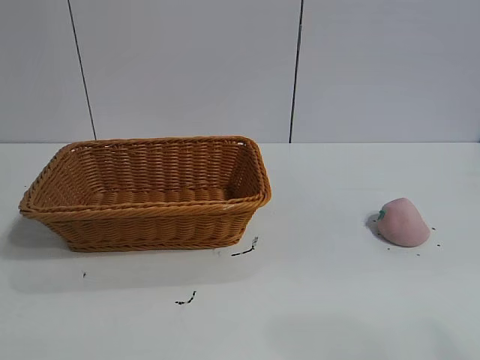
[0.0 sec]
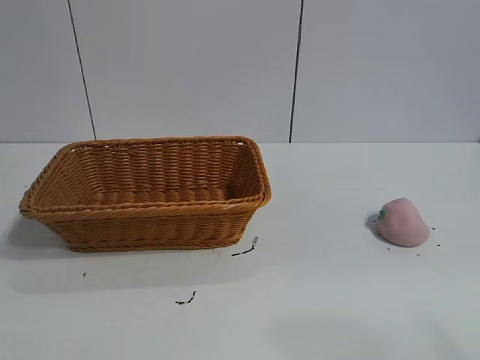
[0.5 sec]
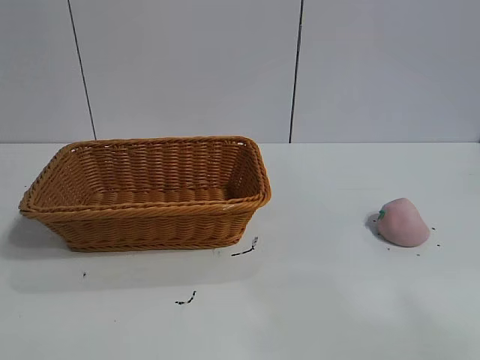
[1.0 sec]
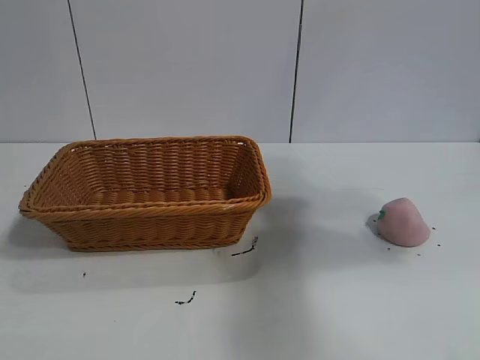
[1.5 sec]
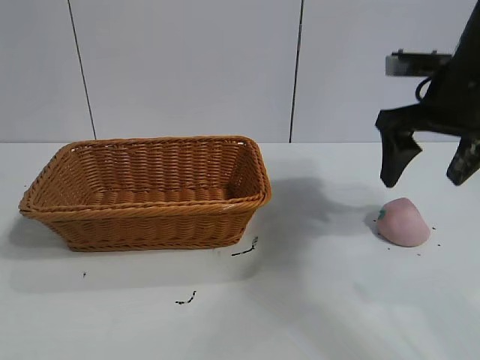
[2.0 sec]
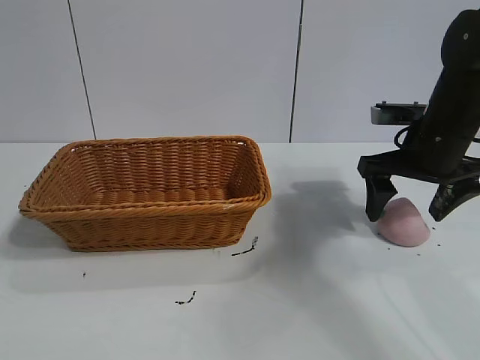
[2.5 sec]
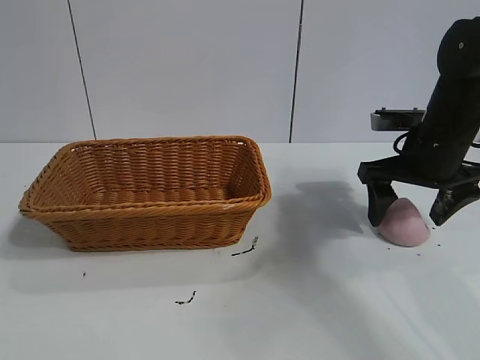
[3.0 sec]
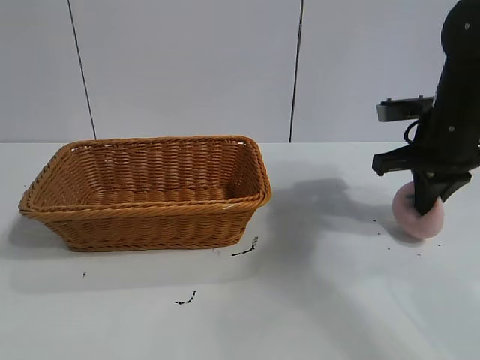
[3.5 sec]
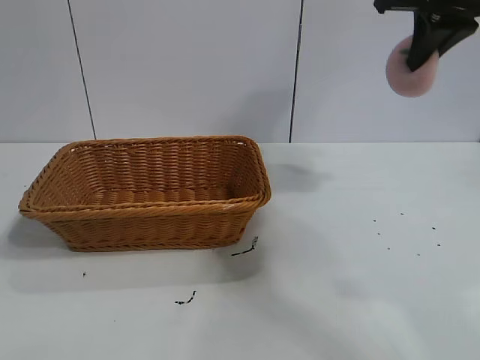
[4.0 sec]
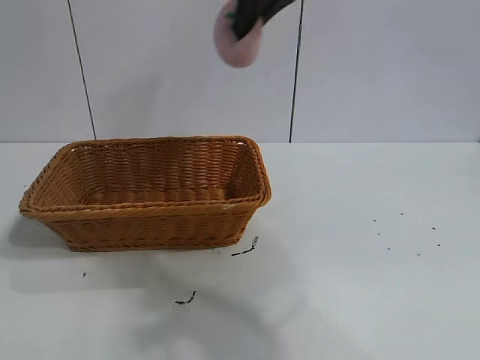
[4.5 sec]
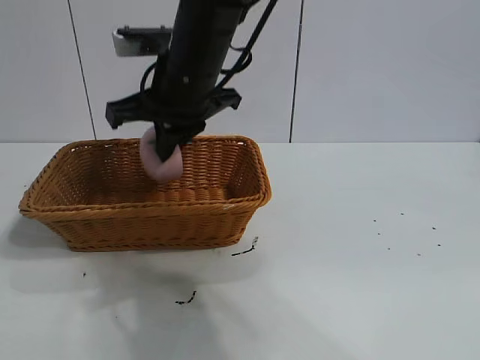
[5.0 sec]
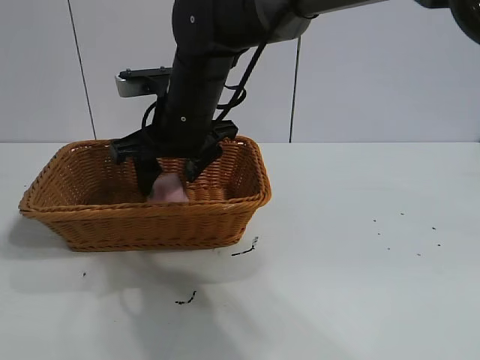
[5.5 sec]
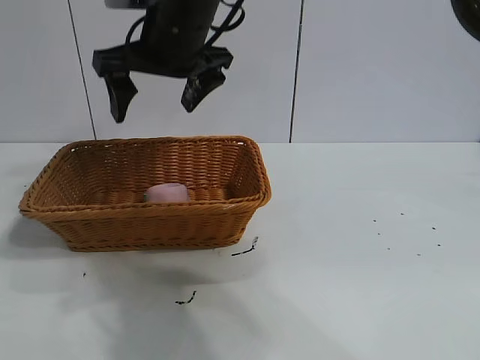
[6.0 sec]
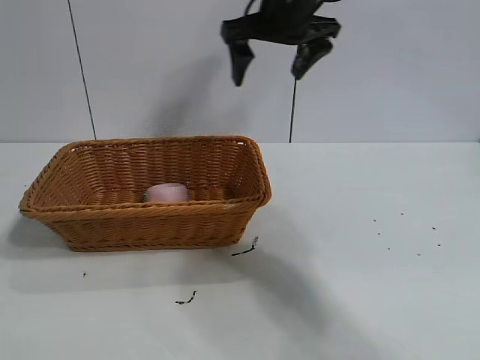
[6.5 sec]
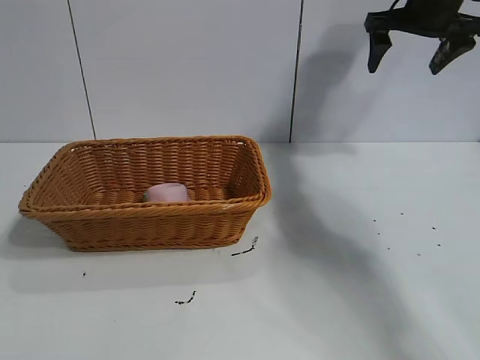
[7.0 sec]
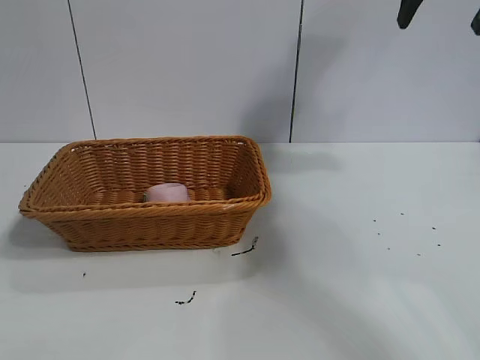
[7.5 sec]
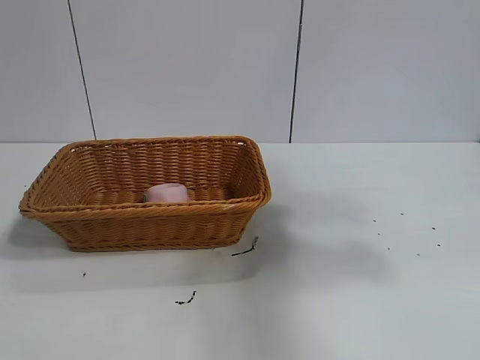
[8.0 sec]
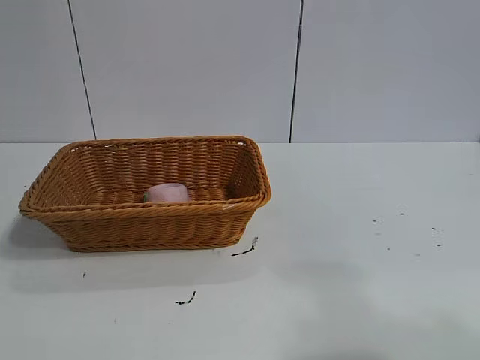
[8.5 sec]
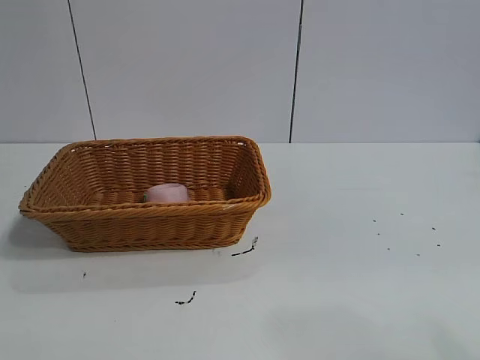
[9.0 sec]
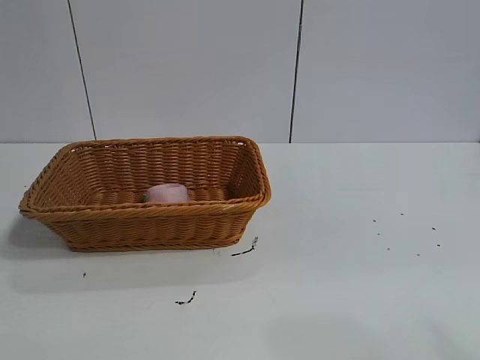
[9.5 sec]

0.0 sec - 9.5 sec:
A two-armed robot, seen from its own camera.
Task of the whole recording: pick up the peach and put it into the basket.
Step, 1.0 sec - 3.0 sec: Grasp the peach with right gripper.
Step, 3.5 sec - 6.0 sec: Place the peach in the basket with right gripper.

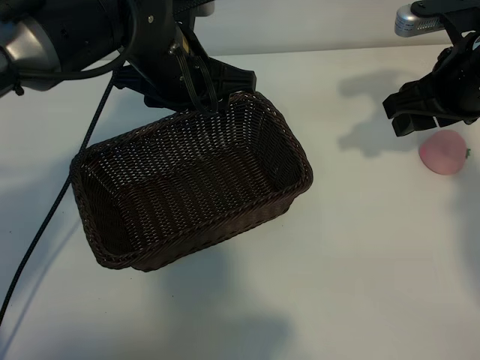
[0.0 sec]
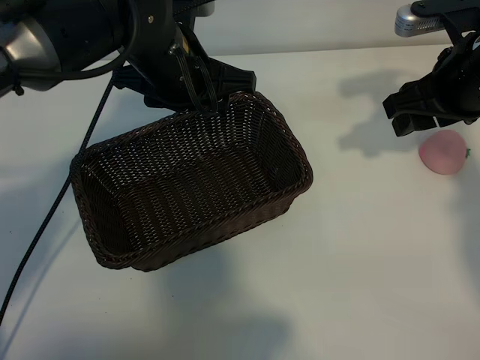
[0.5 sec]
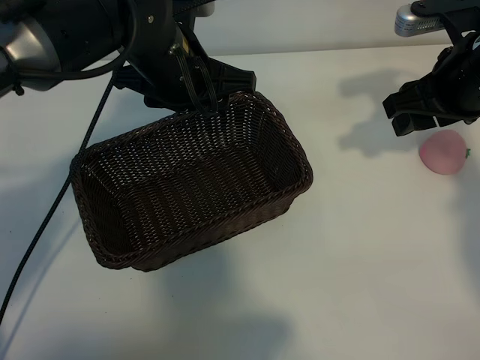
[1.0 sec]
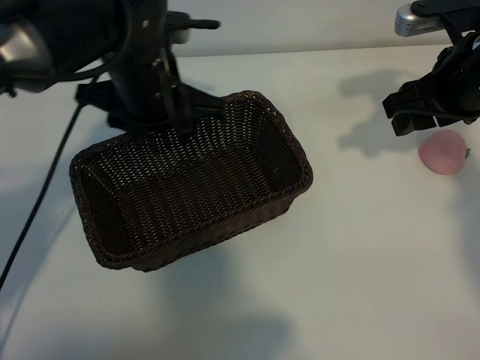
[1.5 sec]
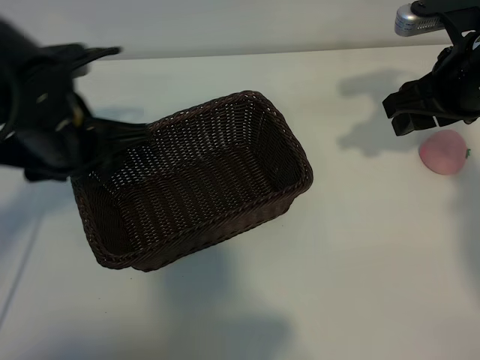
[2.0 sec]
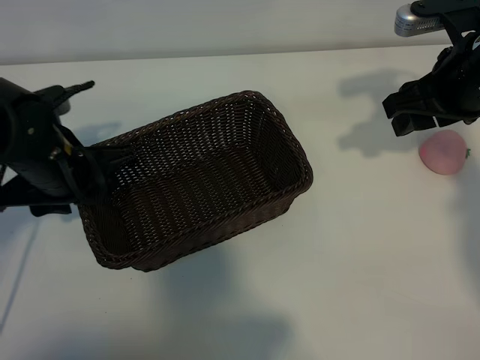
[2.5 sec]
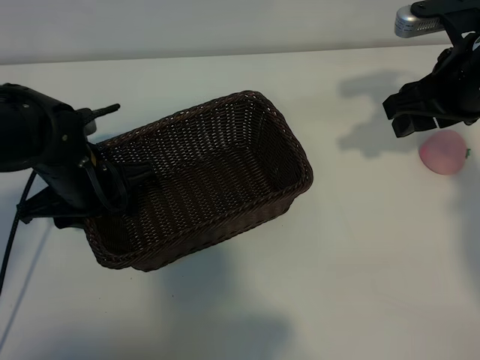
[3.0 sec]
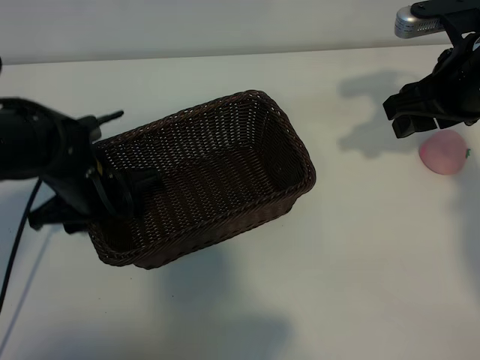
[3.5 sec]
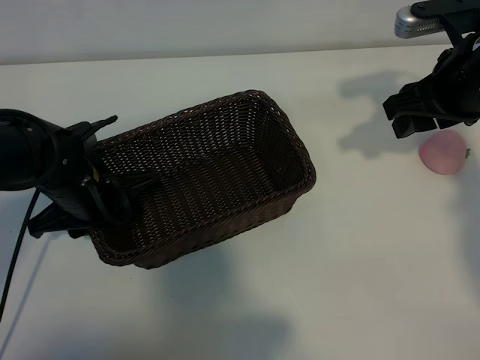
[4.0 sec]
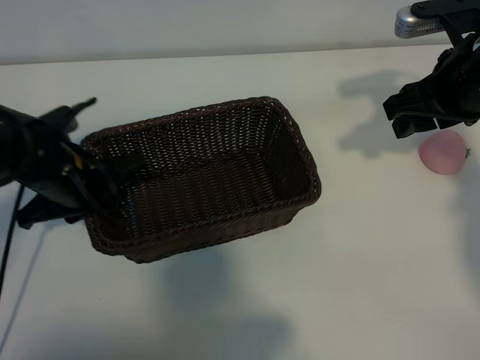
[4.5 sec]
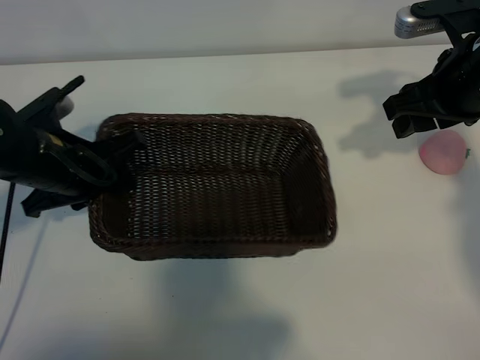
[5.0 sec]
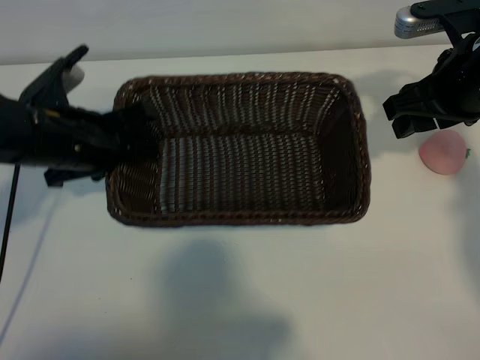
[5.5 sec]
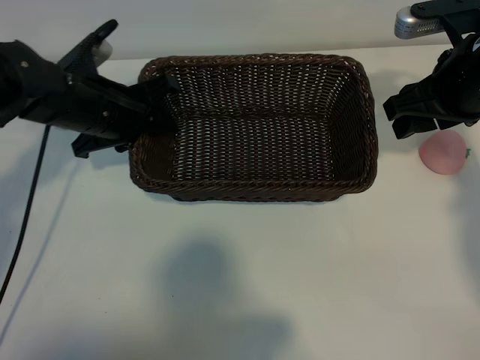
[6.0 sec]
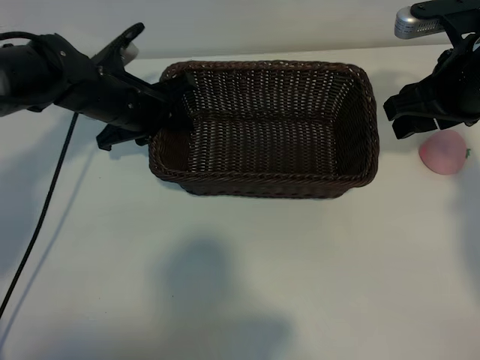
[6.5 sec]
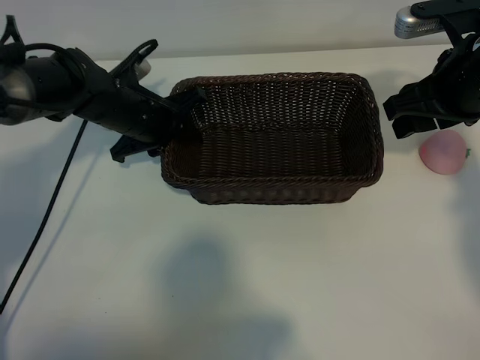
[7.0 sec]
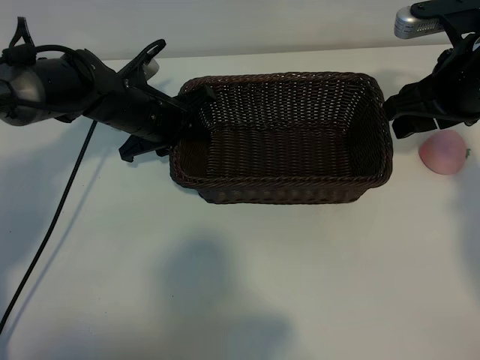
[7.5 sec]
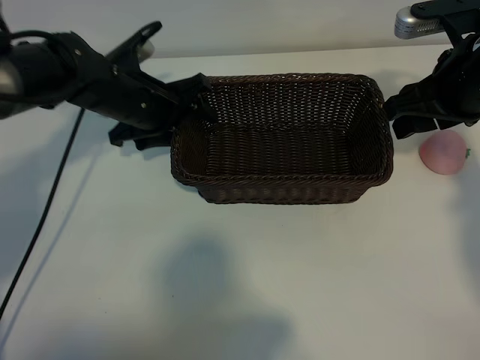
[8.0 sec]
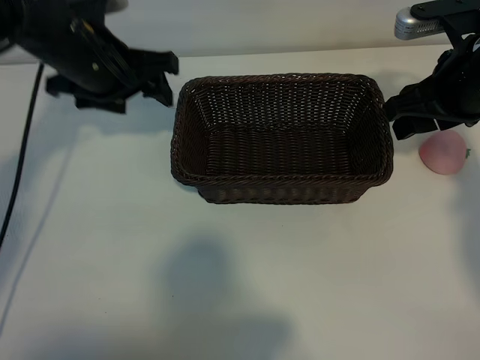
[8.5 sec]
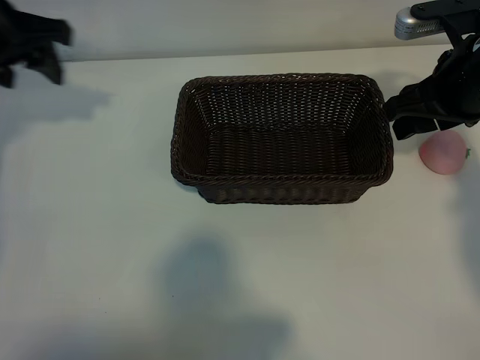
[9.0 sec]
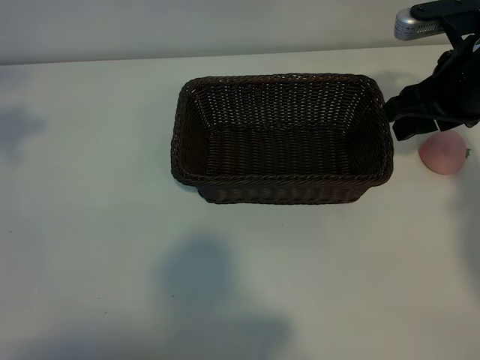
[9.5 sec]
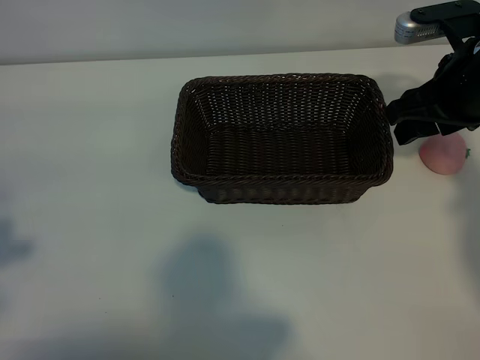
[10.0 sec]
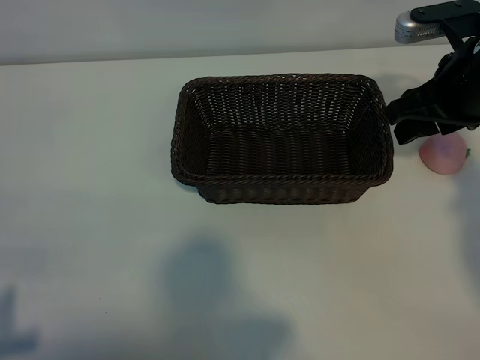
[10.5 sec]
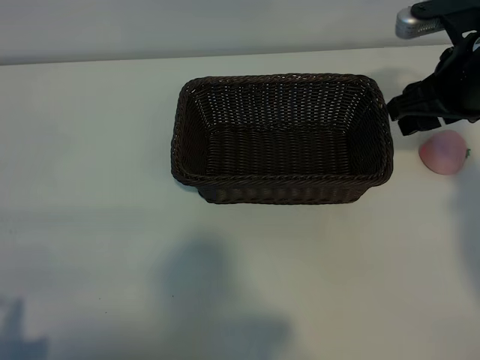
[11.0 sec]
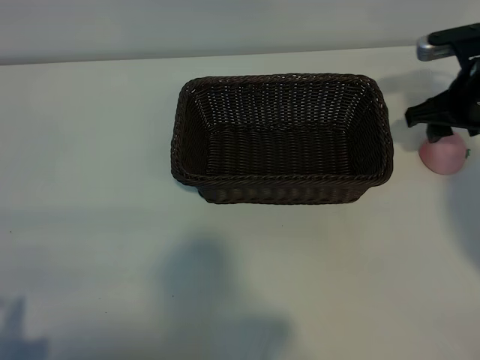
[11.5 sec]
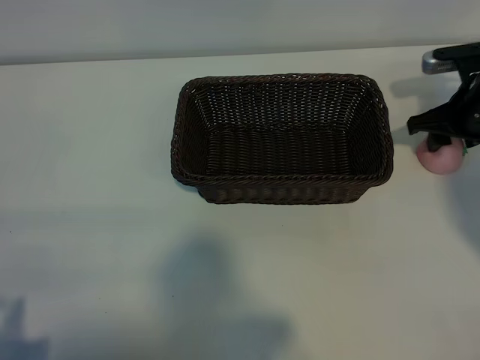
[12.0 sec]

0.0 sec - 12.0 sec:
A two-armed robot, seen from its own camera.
Task of the whole recording: pick up the peach and put it into the basket.
Step, 1.5 sec - 4.0 sec: Grasp the basket with left gripper.
Step, 4.5 sec - 8.0 sec: Place the basket in the center of view with left gripper.

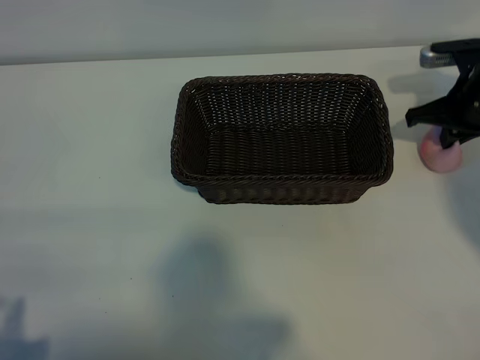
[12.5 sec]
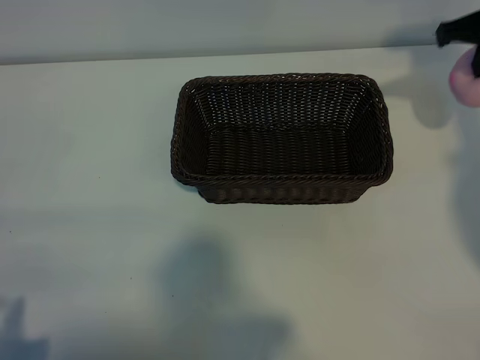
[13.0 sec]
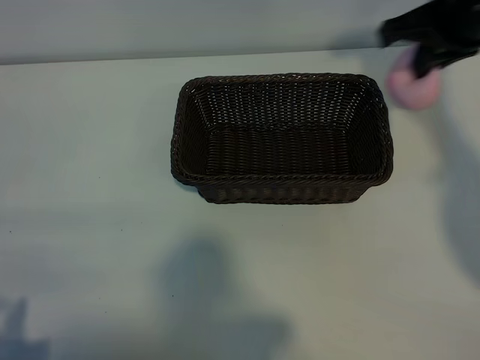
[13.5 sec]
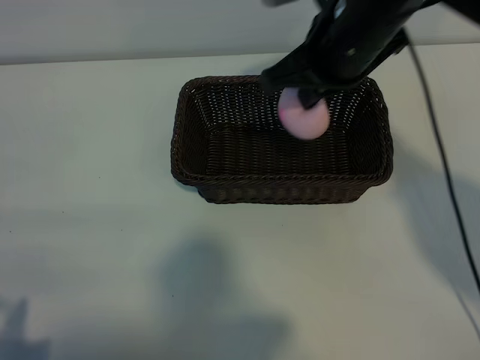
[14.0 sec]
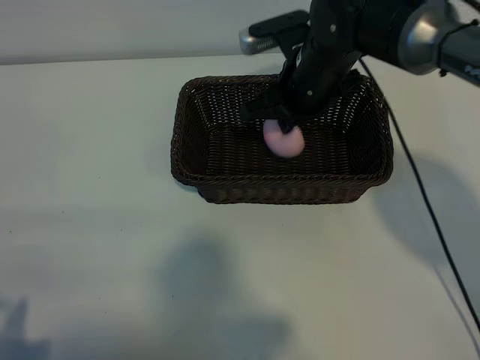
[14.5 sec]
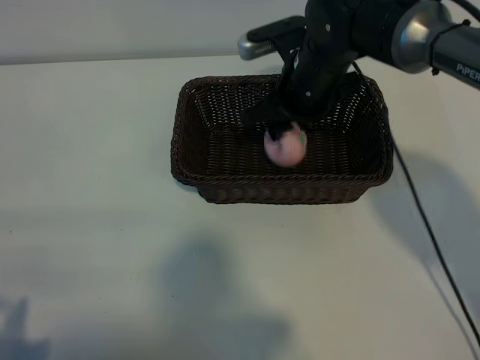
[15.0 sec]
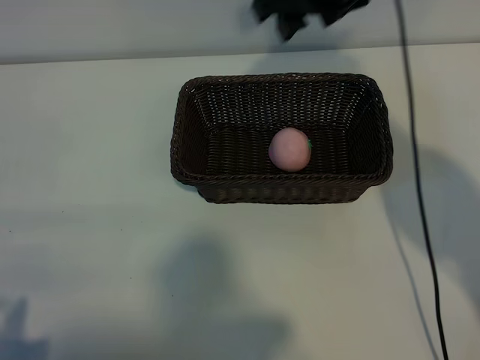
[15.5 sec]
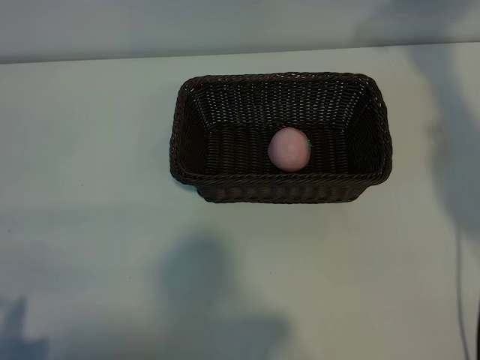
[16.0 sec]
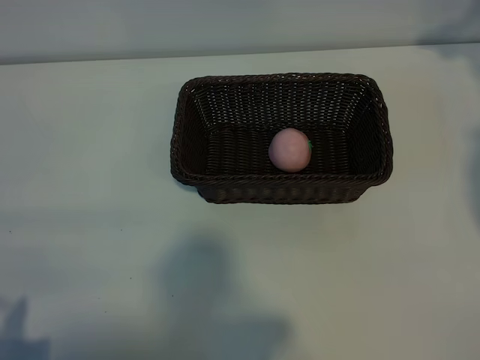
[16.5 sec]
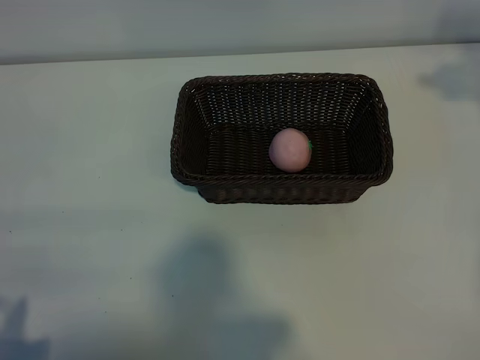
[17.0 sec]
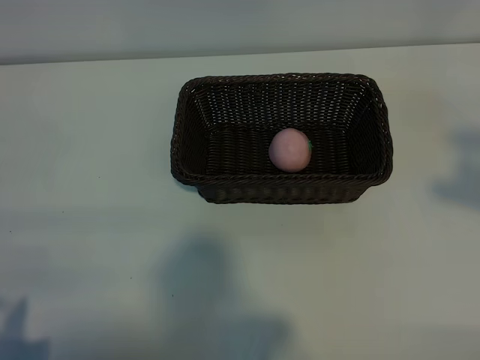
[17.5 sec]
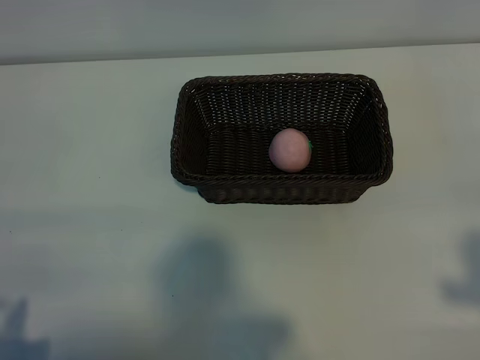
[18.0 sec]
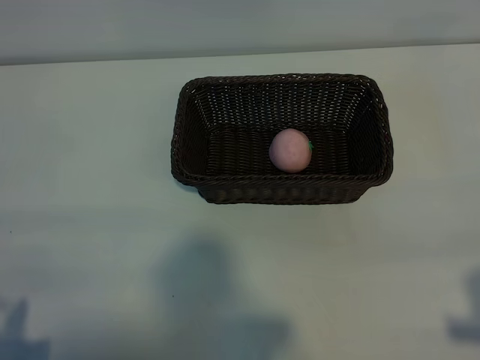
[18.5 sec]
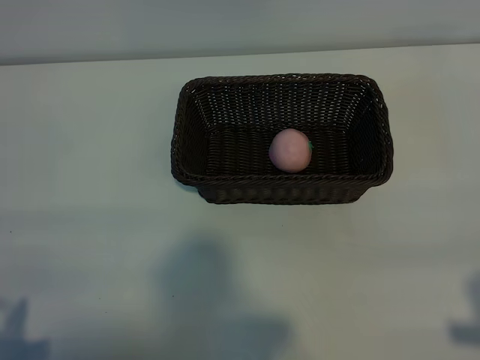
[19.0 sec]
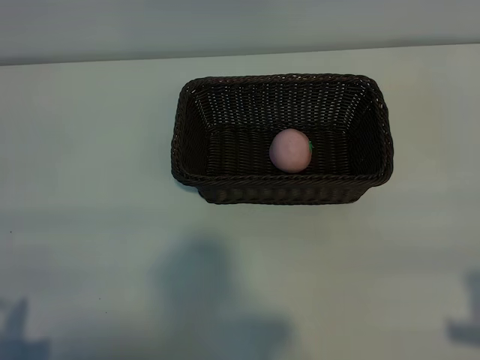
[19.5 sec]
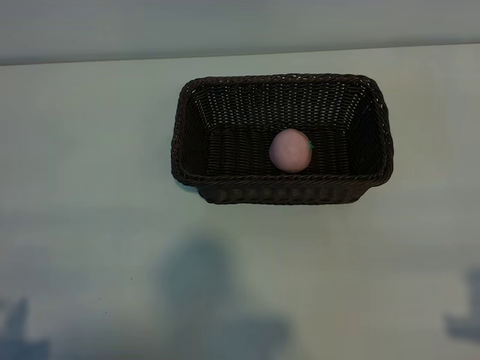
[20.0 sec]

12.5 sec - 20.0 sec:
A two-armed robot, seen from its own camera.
Task of the whole recording: pick up the peach and put it into the basket.
Step, 13.0 sec - 15.0 sec: Place the peach in the basket with right gripper.
